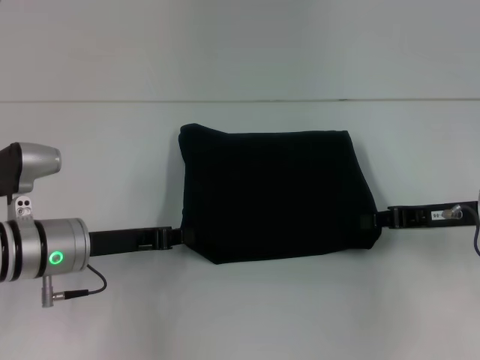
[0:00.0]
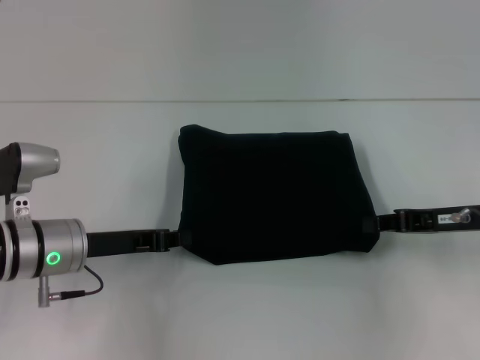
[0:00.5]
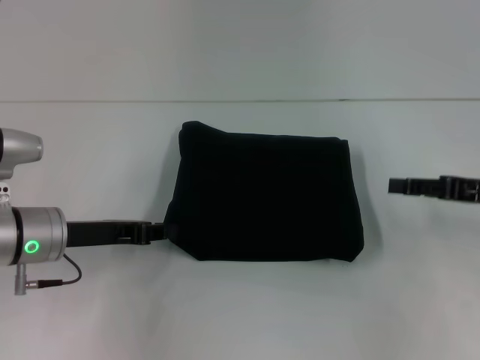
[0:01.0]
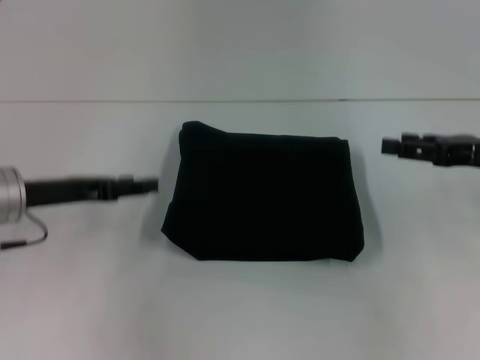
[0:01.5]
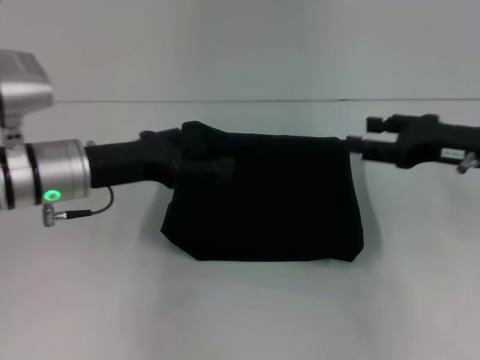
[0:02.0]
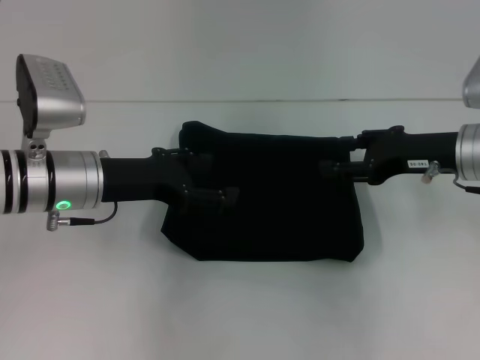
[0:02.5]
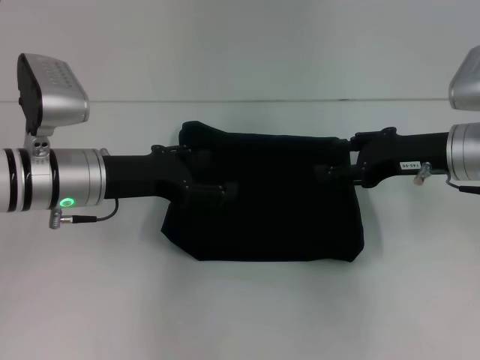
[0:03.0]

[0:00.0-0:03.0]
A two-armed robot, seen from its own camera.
0:00.0 to 0:01.5: The right gripper moves approximately 5 cm, and opens. Meanwhile the left gripper travels upward and to the left by approximately 5 cm, and opens its fingers.
0:01.5 to 0:03.0: The left gripper goes about 5 cm to the right, and opens its fingers, while the right gripper is displaced to the left by roughly 10 cm.

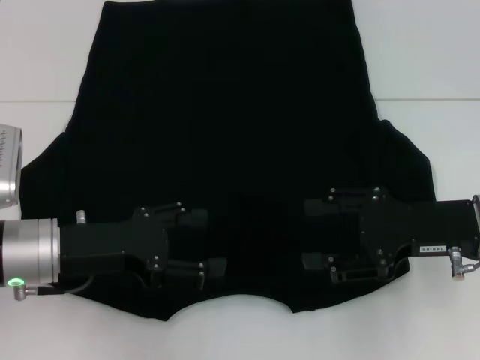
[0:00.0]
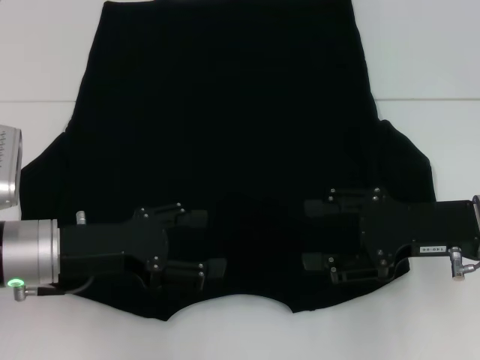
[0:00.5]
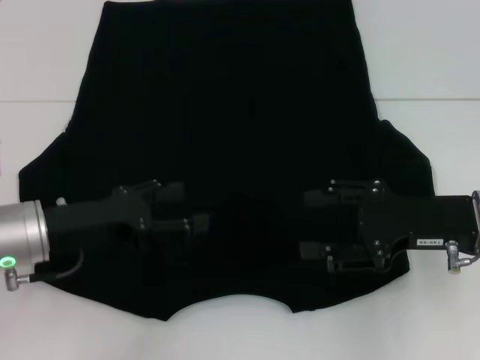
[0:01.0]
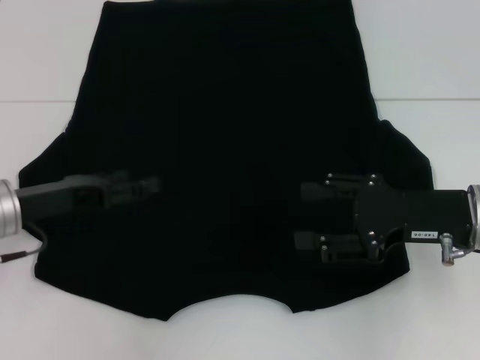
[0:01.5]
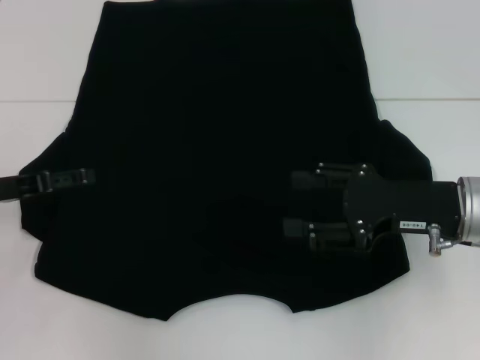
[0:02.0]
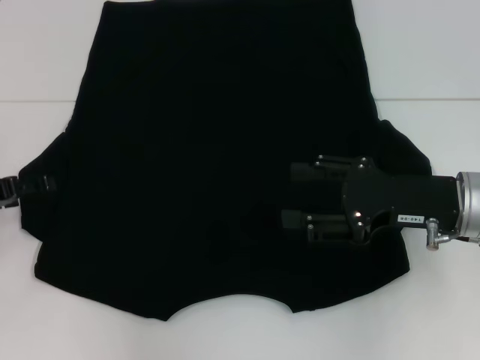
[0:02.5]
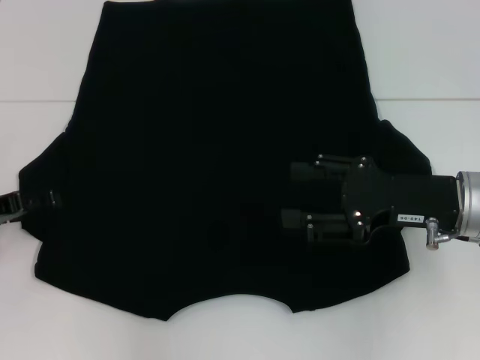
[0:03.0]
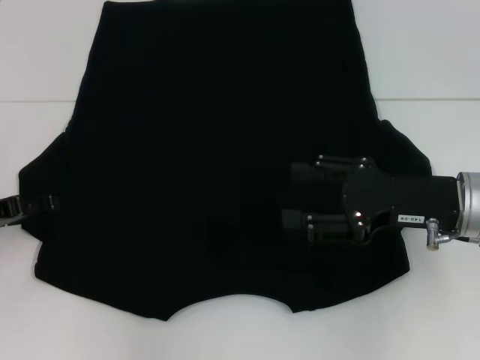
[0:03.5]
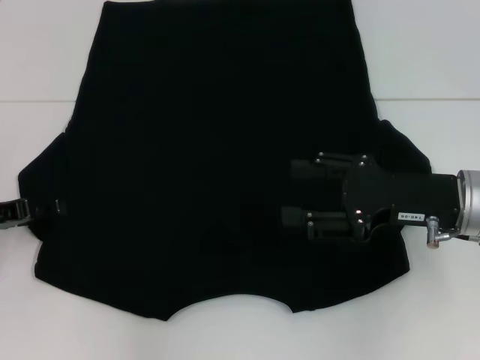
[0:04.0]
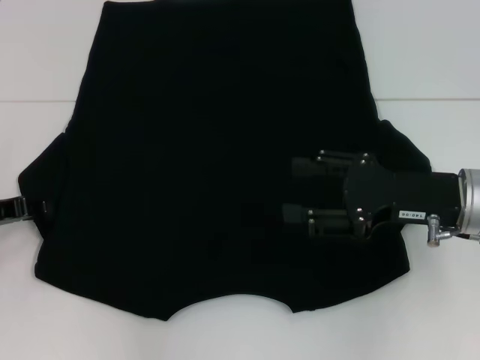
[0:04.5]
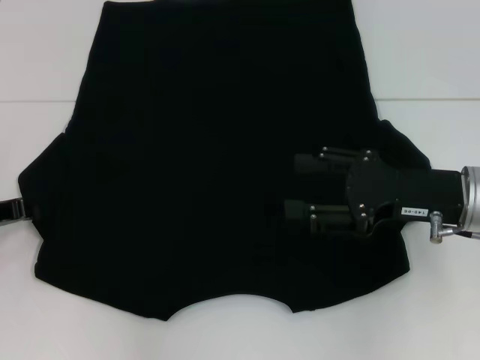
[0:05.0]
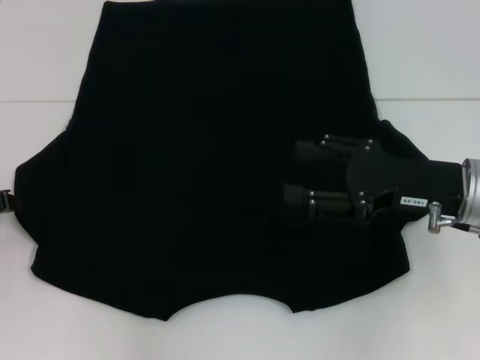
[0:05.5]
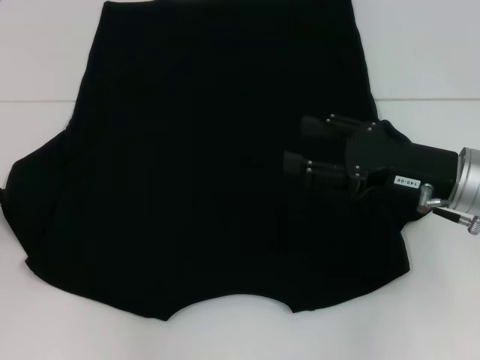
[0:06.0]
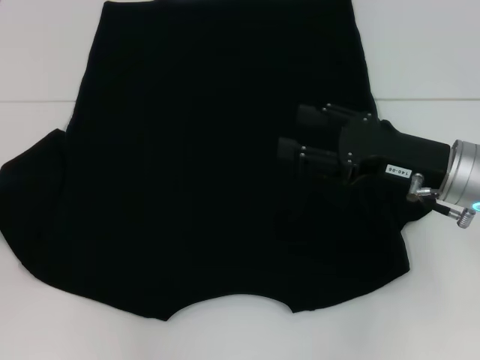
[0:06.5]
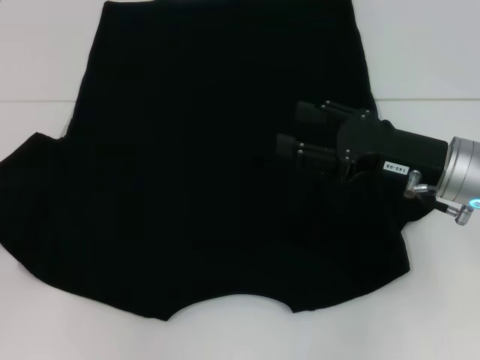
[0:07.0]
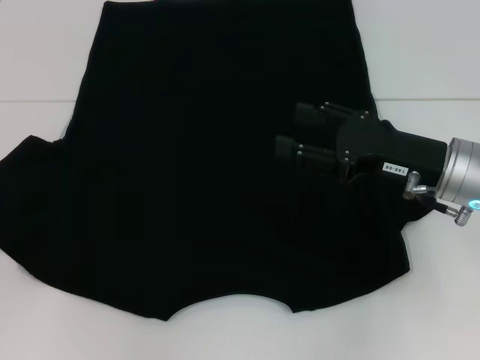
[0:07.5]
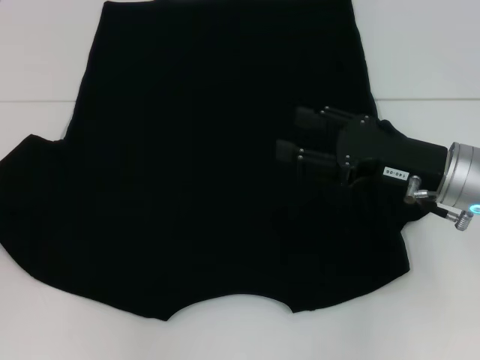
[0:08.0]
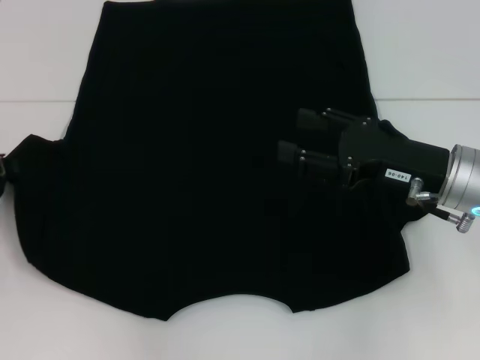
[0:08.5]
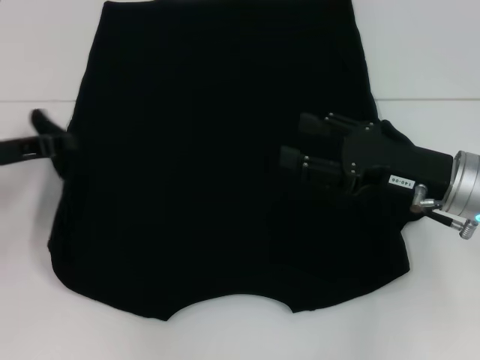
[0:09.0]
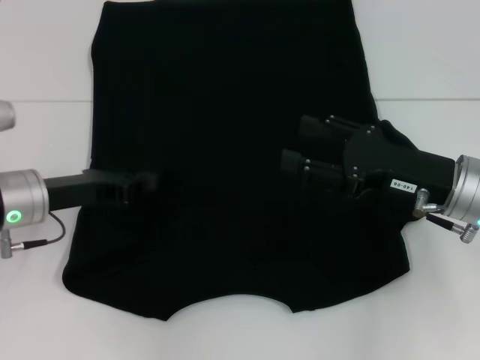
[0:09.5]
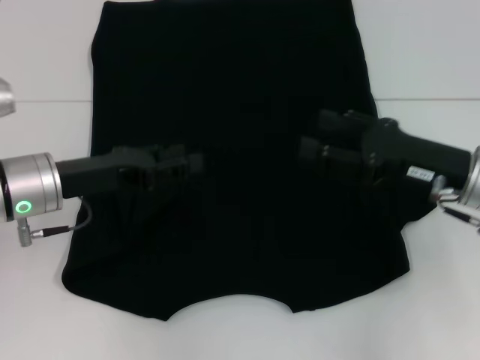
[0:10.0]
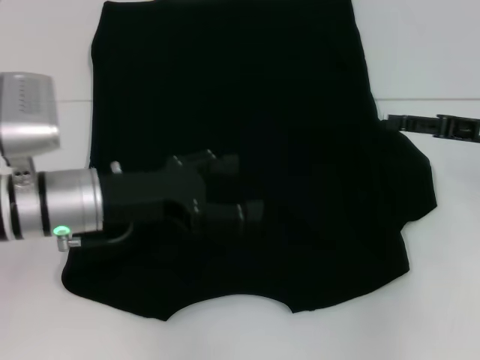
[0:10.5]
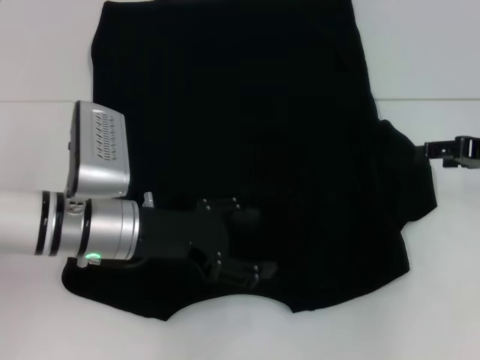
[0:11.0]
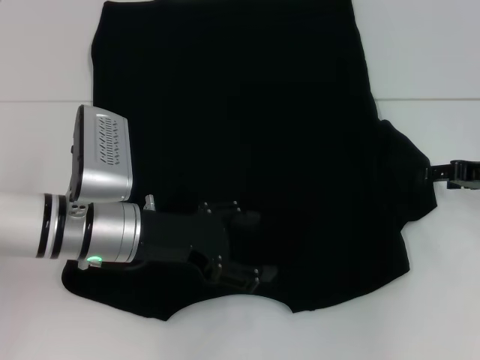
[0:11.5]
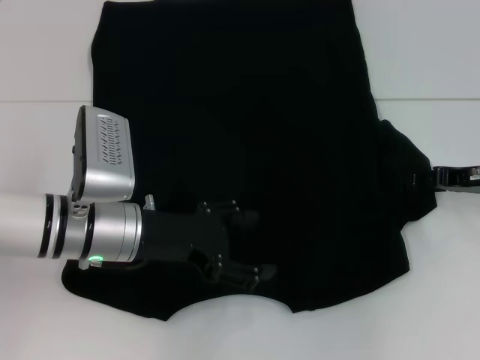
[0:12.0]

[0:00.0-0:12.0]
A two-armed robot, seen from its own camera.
Step, 0:00.0 to 0:09.5: Fold the bottom left sleeve with your left hand.
0:00.0 to 0:02.0: The left gripper goes approximately 10 cm to the left.
0:02.0 to 0:04.0: The grippers move only a little.
0:04.0 to 0:06.0: The left gripper closes up.
0:06.0 to 0:08.0: The grippers stay close to where they were, moving slightly.
0:08.0 to 0:10.0: The left gripper goes some 15 cm to the right.
0:10.0 to 0:12.0: The right gripper goes roughly 10 cm to the right and forward, while the left gripper shifts roughly 5 cm to the right, and opens its fingers.

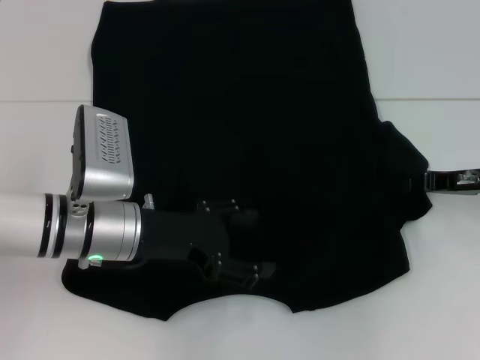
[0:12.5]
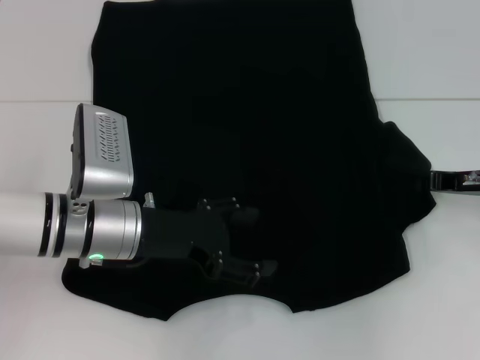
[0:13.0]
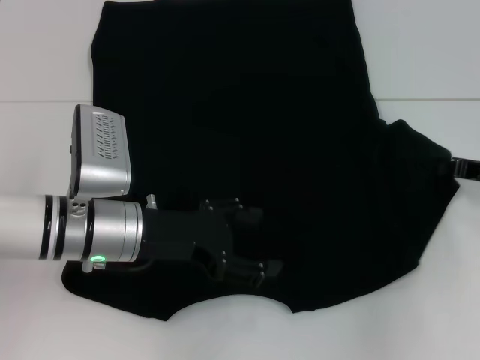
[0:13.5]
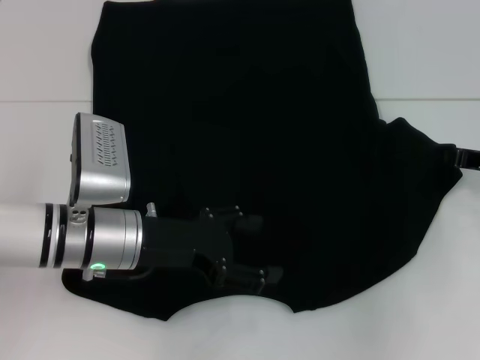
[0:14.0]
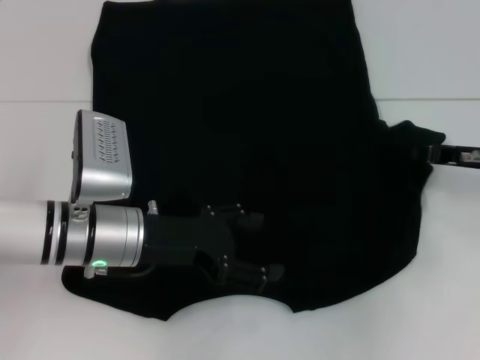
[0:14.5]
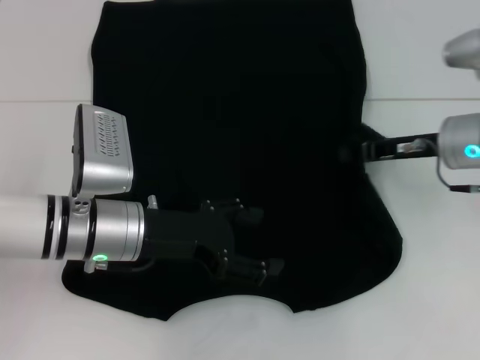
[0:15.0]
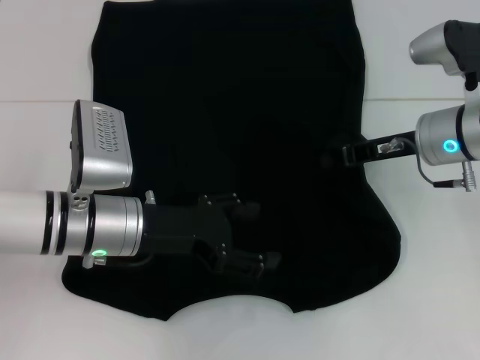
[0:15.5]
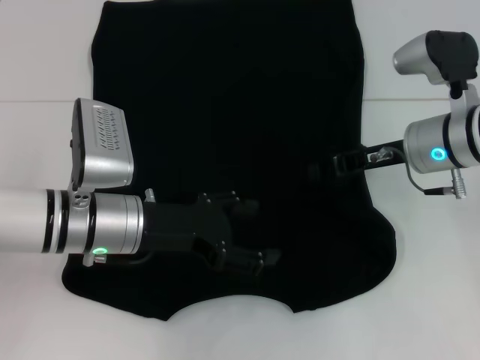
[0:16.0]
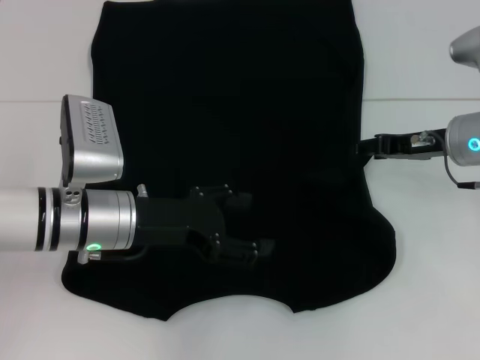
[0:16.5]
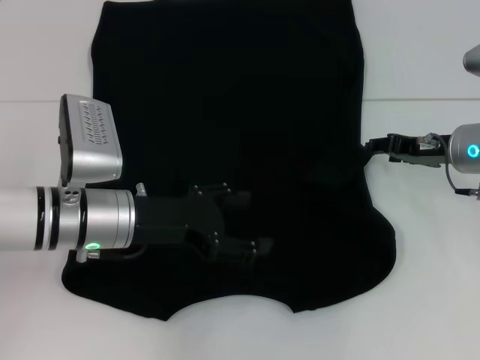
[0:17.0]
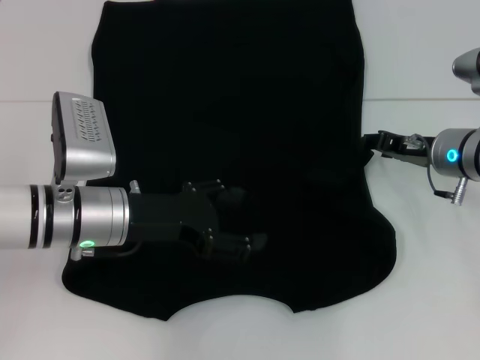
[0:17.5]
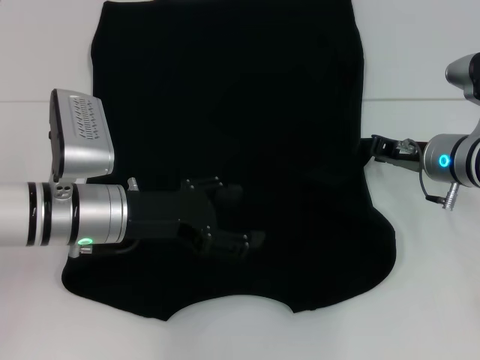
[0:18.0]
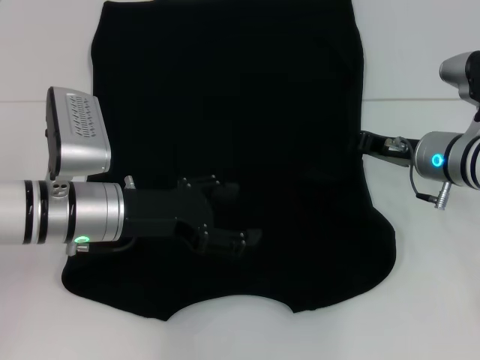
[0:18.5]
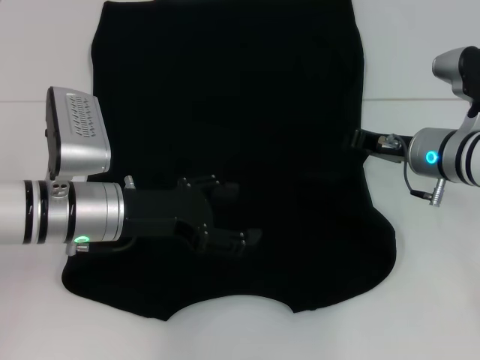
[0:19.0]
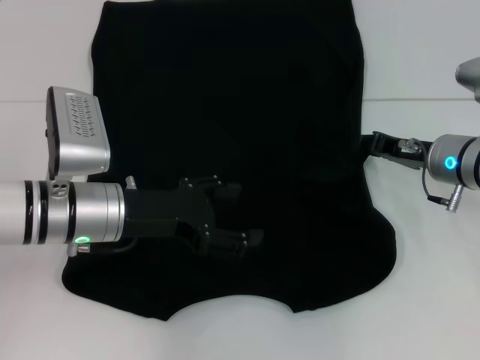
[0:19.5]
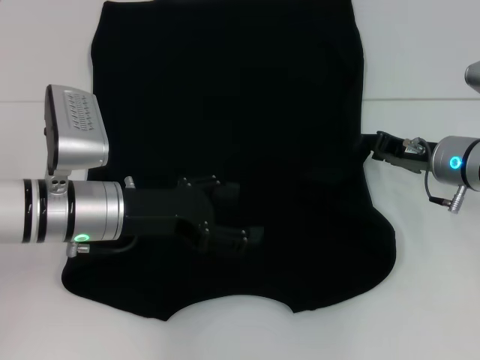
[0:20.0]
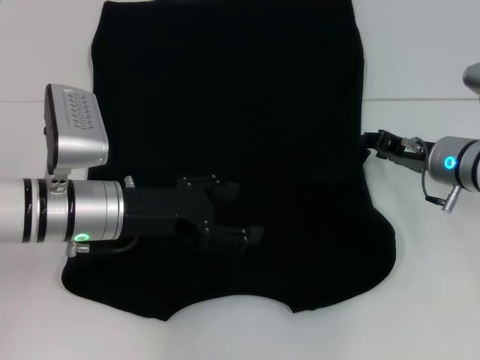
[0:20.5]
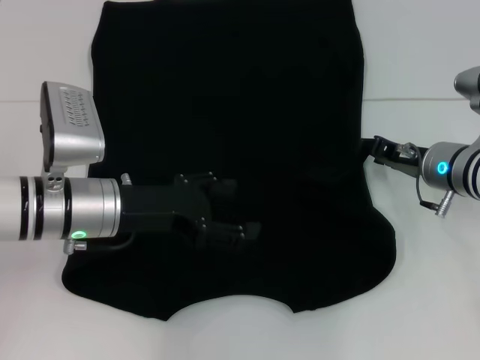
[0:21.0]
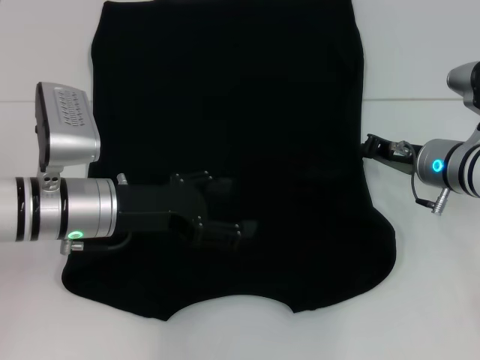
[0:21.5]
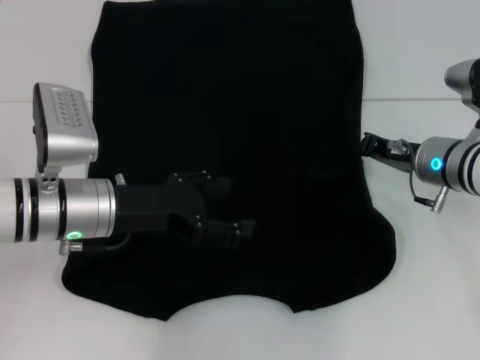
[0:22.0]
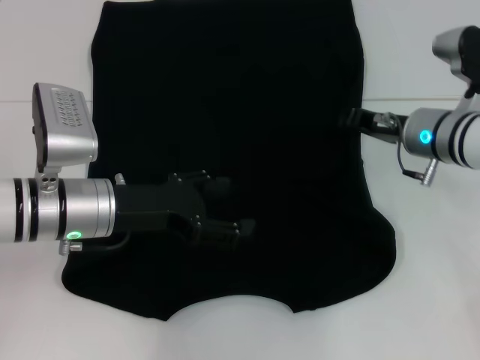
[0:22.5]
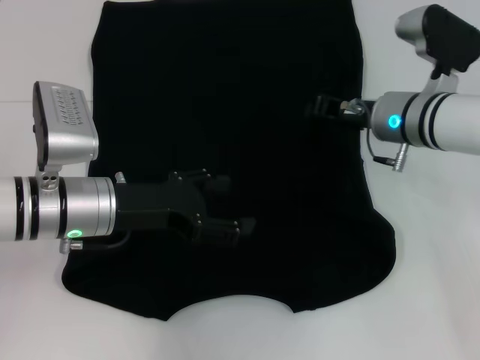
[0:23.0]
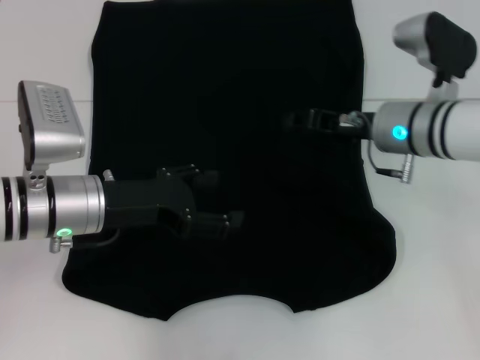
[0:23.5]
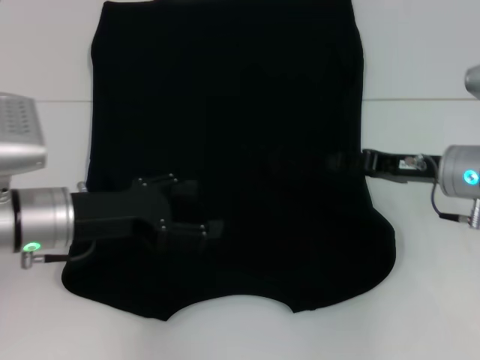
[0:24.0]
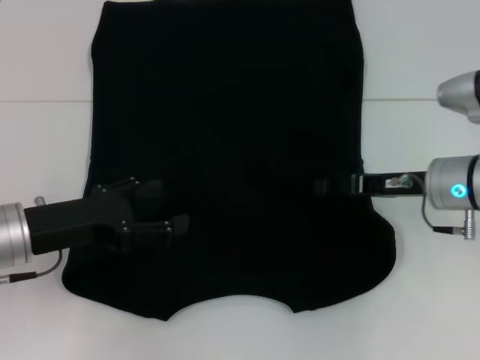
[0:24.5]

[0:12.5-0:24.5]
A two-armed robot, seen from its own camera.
0:12.5 to 0:14.5: The right gripper closes its fingers.
0:14.5 to 0:16.5: The right gripper shifts approximately 5 cm to the left, and opens up.
0:16.5 to 0:18.5: The grippers stay close to where they were, moving slightly.
0:18.5 to 0:20.5: The grippers stay close to where they were, moving slightly.
0:20.5 to 0:22.5: The right gripper closes up.
0:22.5 to 0:24.5: The left gripper moves to the left, roughly 5 cm. The right gripper changes place by approximately 5 cm, and opens its fingers.
